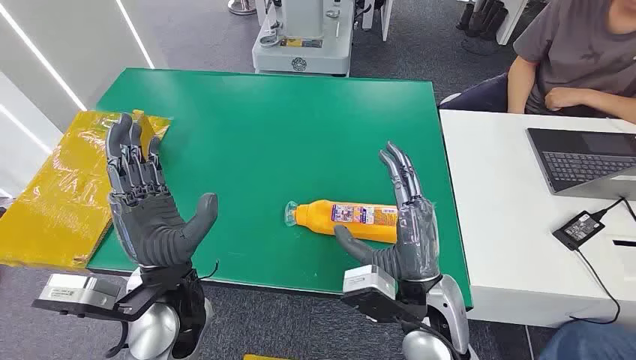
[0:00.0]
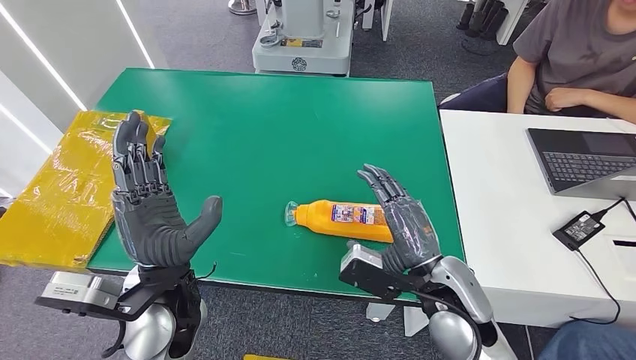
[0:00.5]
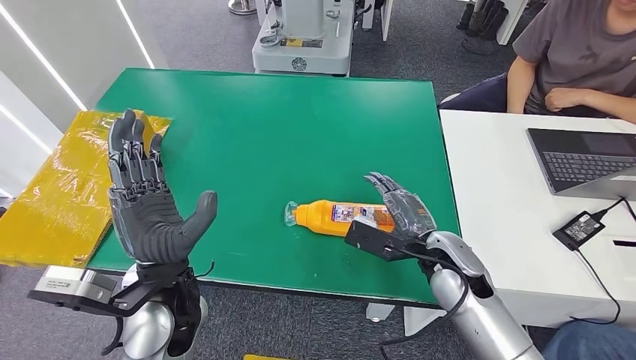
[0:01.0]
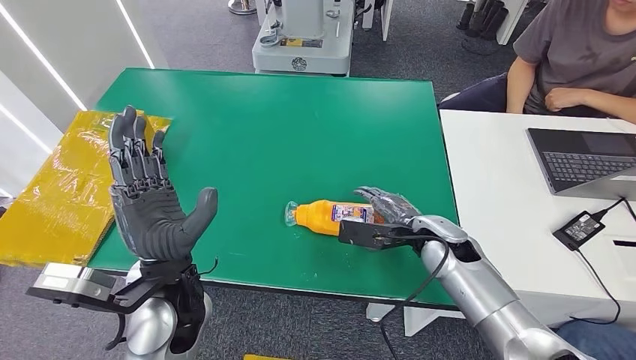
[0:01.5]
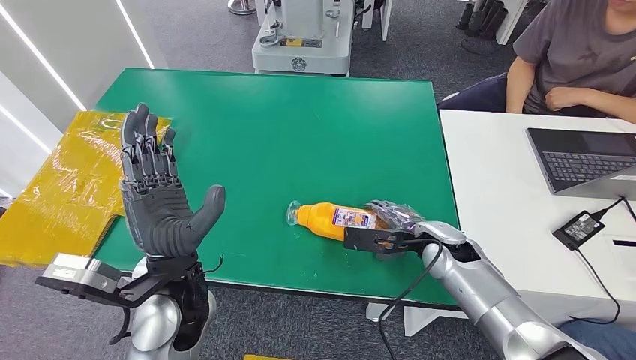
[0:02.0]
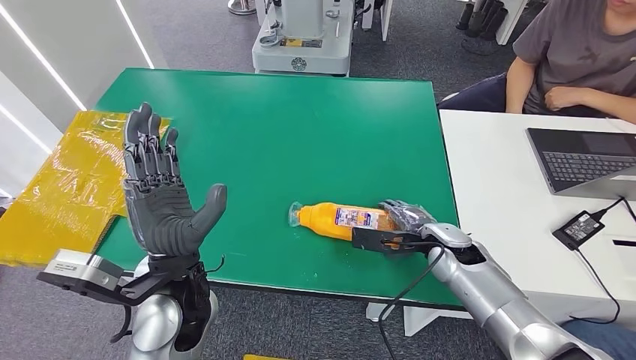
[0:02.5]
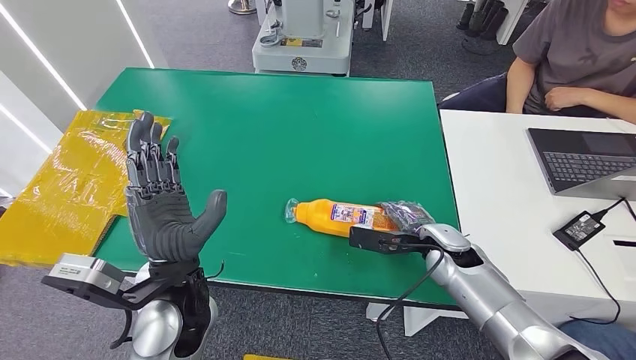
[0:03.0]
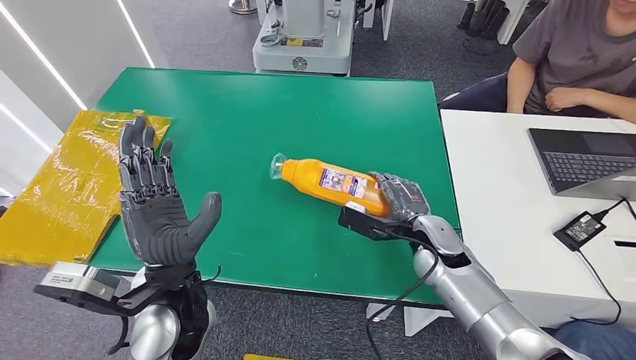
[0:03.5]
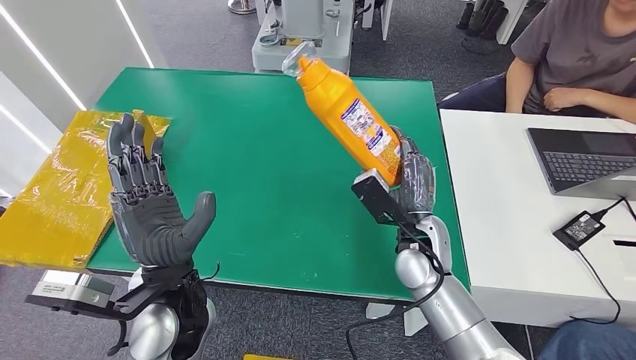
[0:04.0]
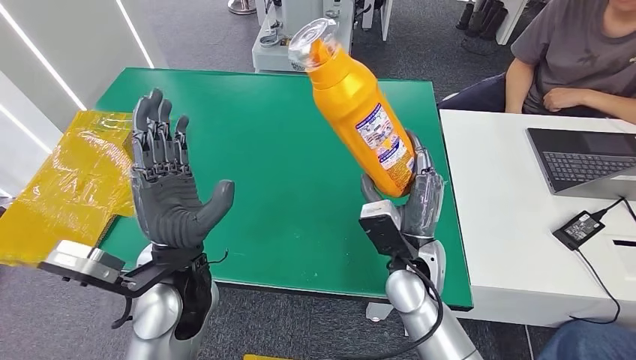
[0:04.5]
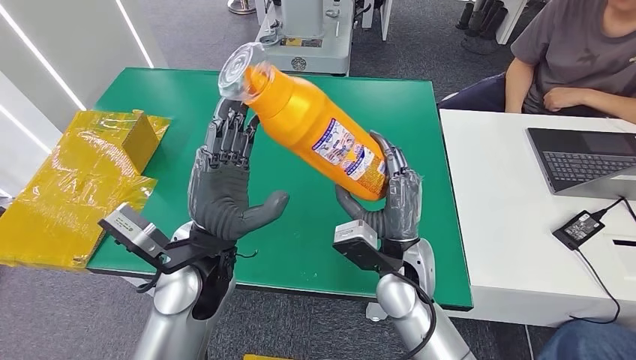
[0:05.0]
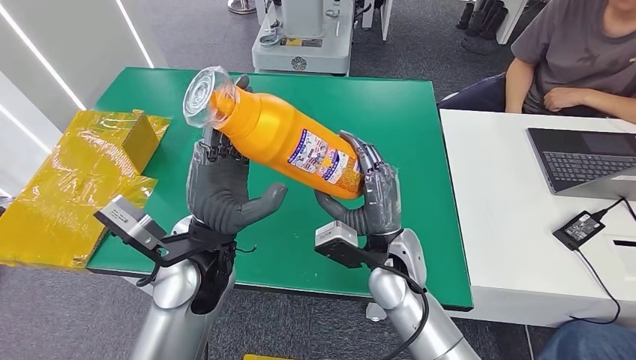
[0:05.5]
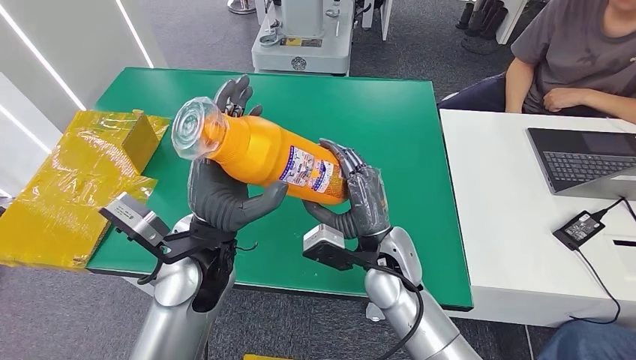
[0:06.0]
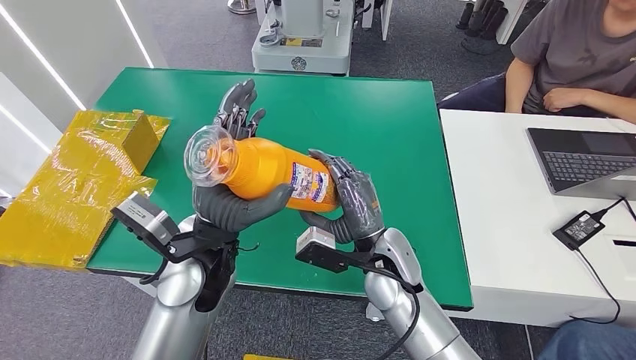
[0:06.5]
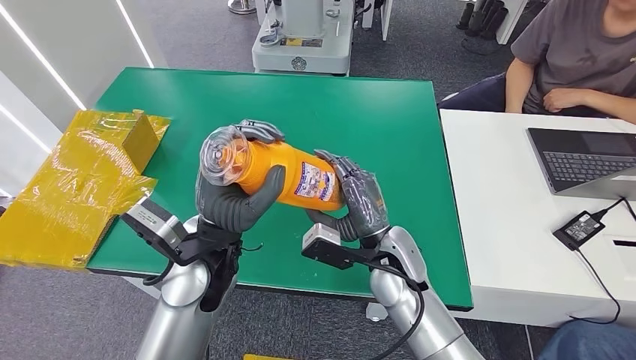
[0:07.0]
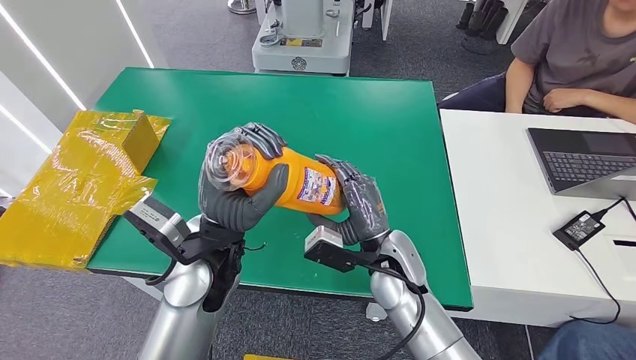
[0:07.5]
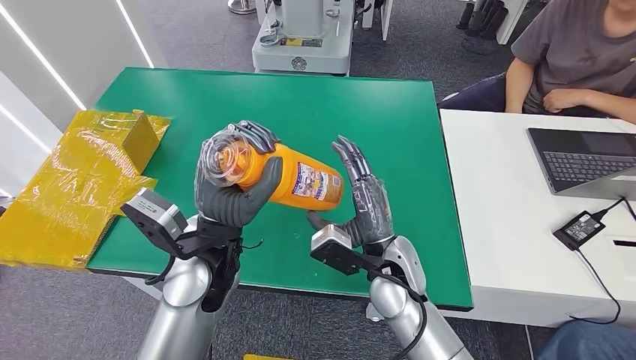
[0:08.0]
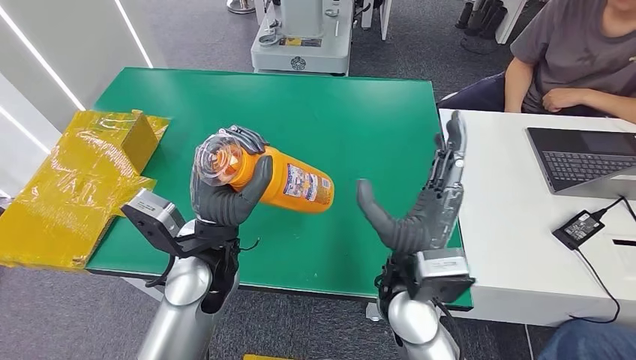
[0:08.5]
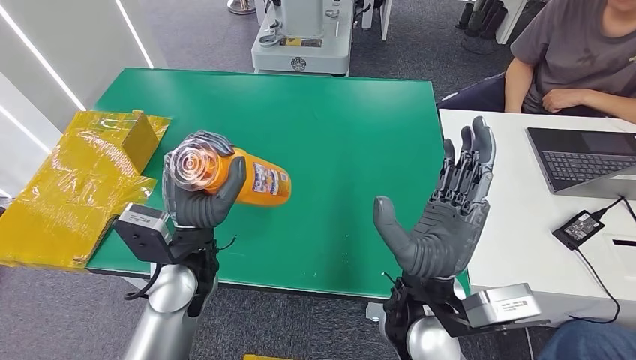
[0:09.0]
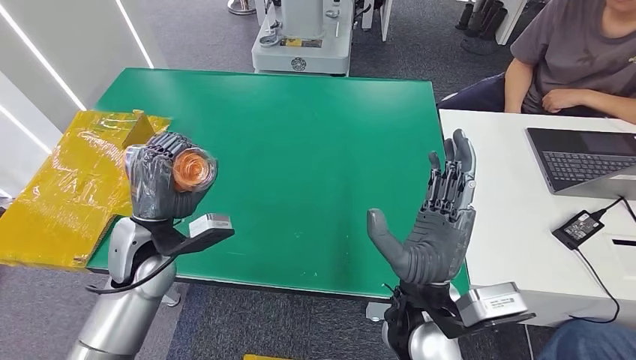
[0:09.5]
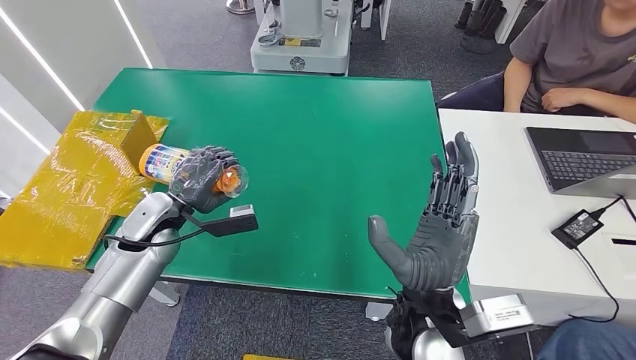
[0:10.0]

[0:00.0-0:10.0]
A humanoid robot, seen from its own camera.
Step, 0.0 to 4.5 s: Pick up the bottle from the table.
2.0 to 4.0 s: The right hand goes about 10 cm to the left.
6.0 to 8.0 s: The hands stay close to where they were, moving slightly.

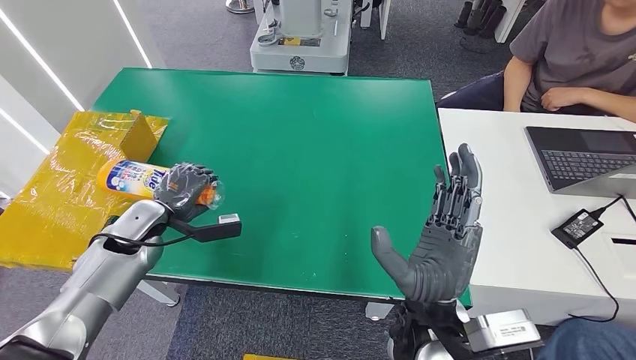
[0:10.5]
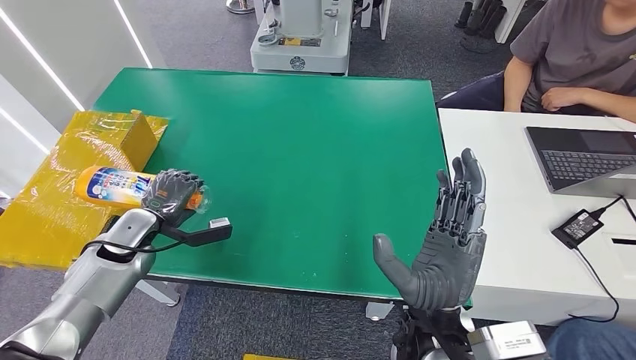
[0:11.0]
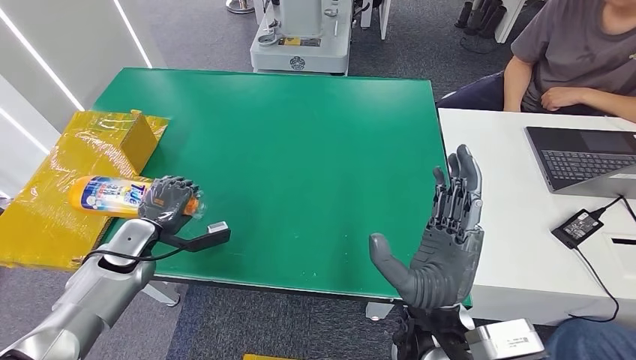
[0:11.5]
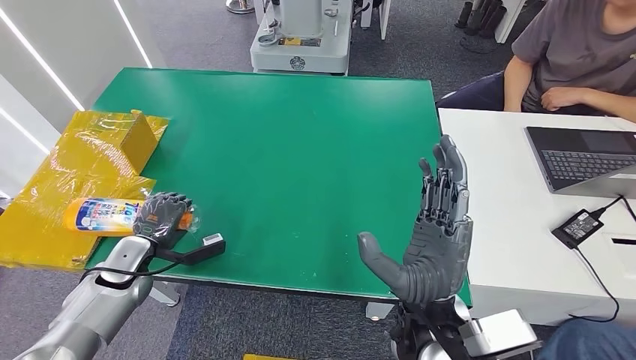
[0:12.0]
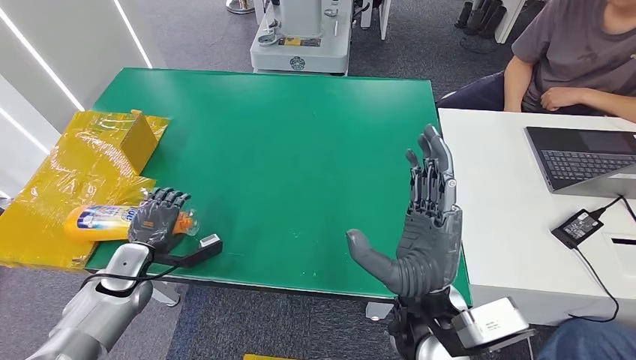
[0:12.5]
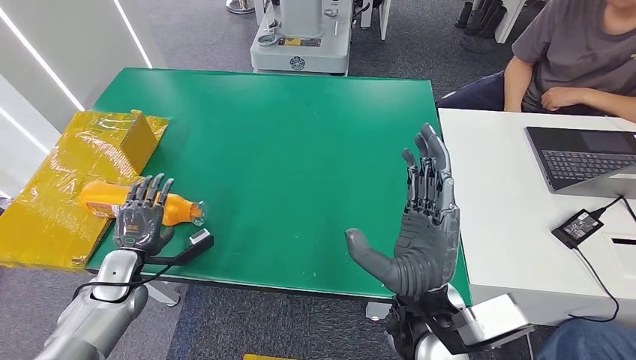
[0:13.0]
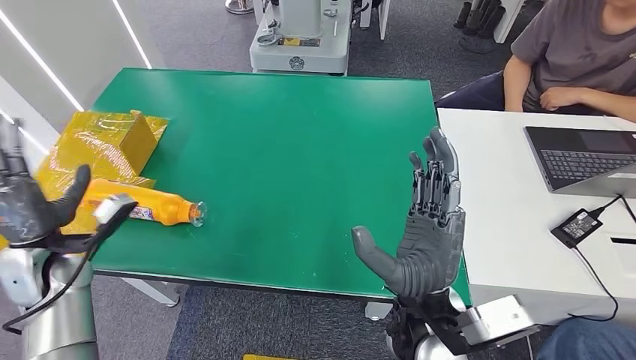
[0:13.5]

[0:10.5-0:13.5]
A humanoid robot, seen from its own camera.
Step, 10.5 to 13.0 s: Turn the bottle to the front side.
10.5 to 12.0 s: The left hand heads backward, covering approximately 5 cm.
12.0 to 13.5 s: The left hand travels upward by some 5 cm.

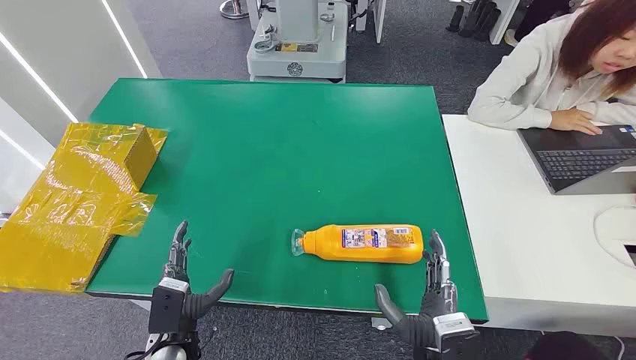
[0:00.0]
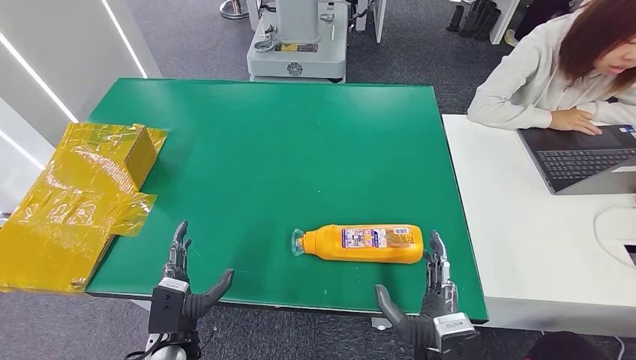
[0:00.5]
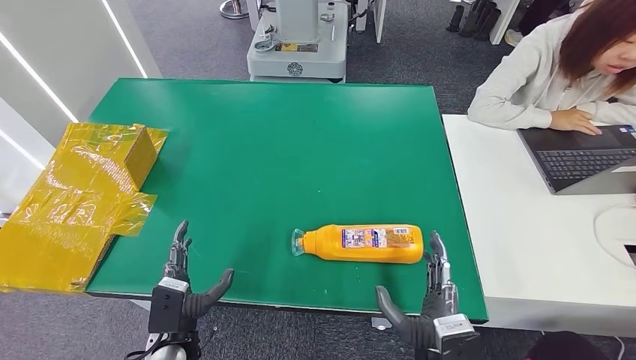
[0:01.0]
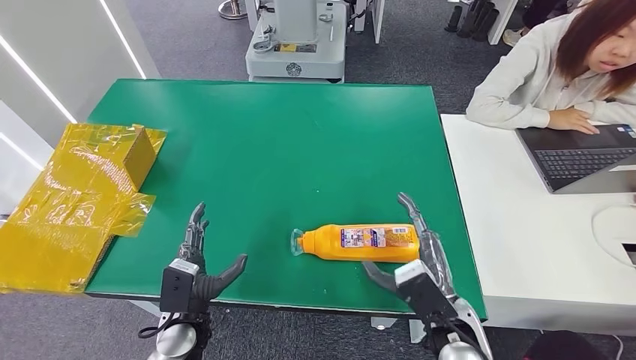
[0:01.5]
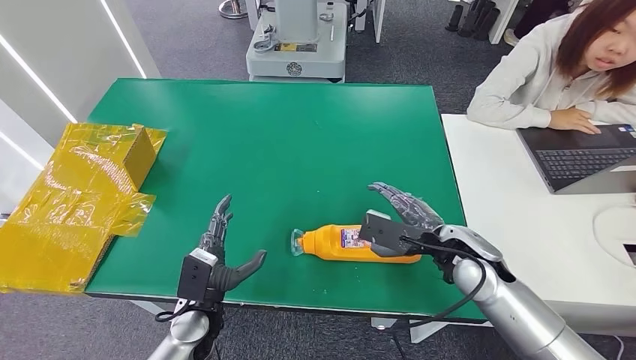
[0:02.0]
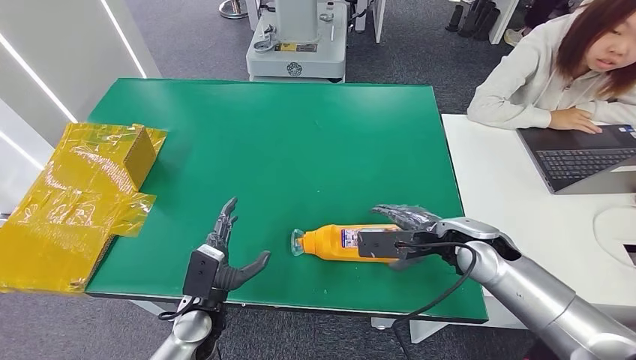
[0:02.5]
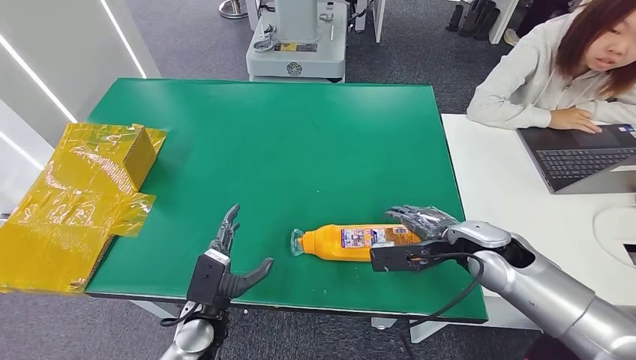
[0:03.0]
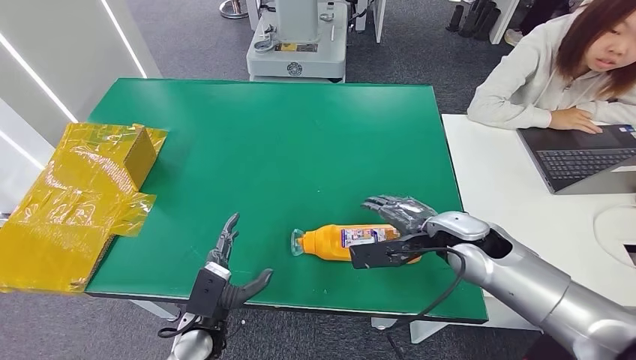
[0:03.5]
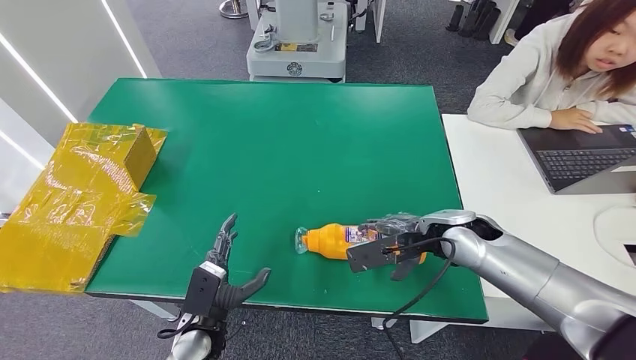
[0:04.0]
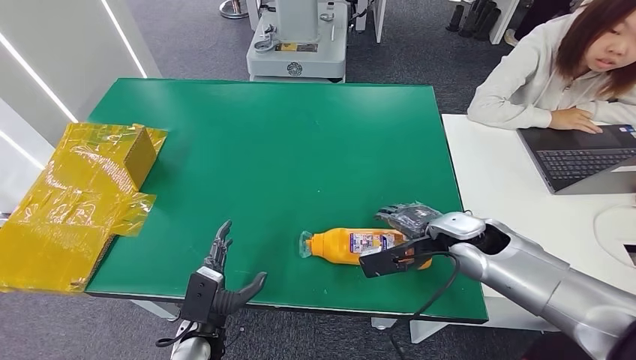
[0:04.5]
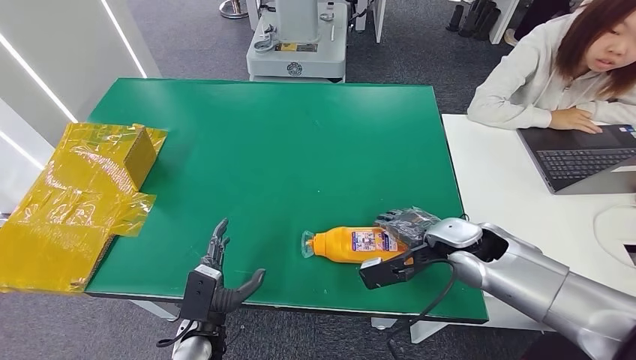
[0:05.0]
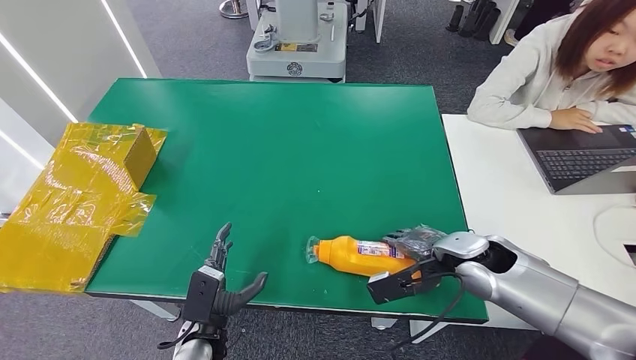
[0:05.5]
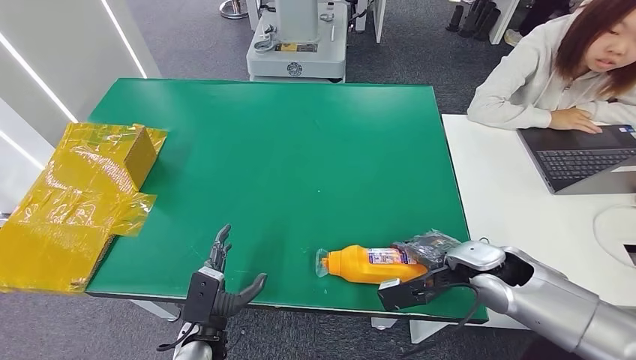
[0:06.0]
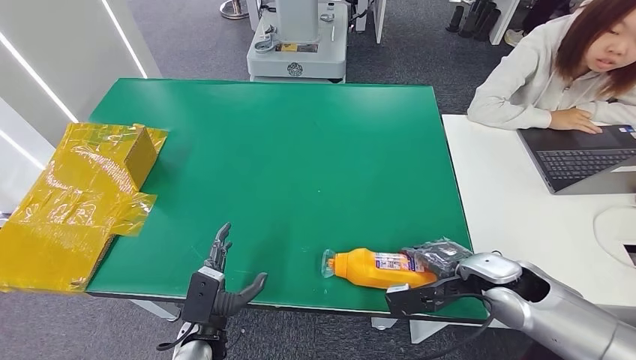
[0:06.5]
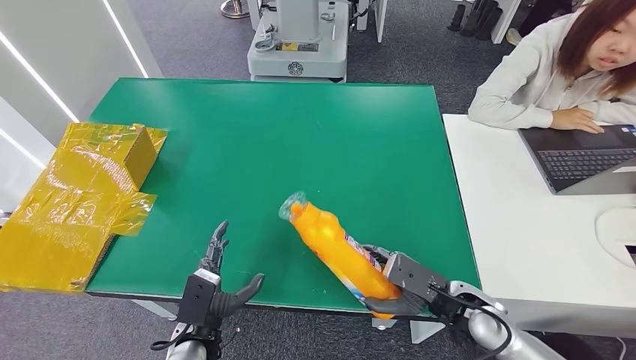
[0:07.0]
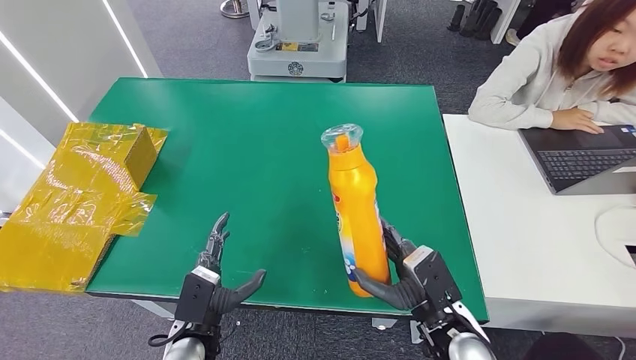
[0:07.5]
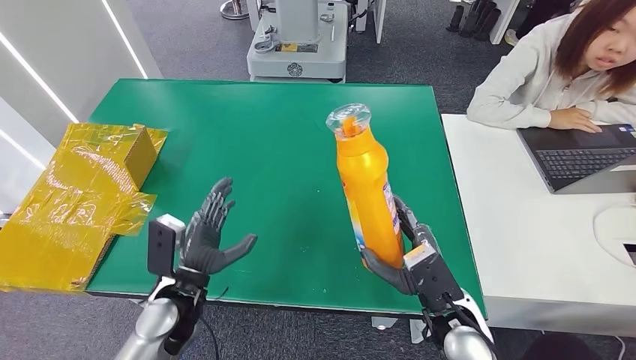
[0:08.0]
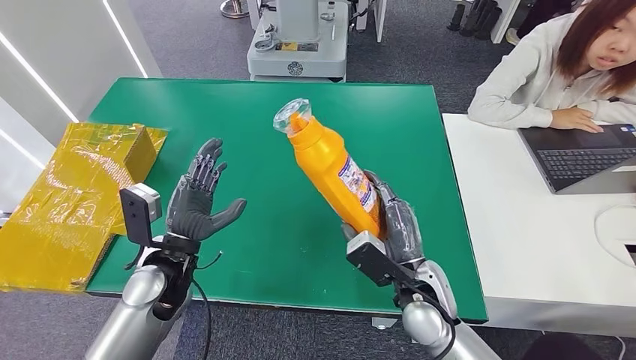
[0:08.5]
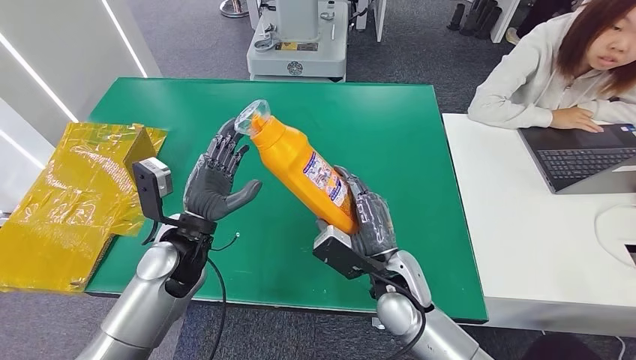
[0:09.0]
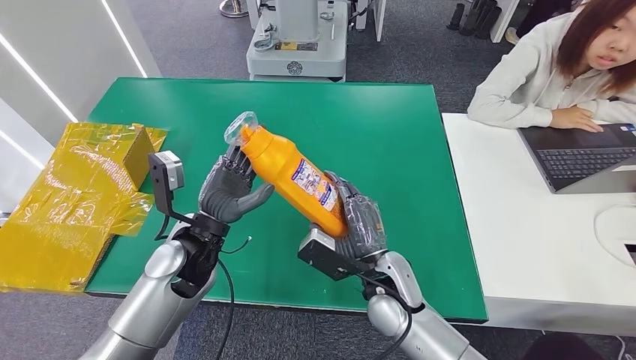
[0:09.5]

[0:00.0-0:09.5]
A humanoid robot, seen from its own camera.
Step, 0.0 to 7.0 s: Pick up the bottle from the table.
2.0 to 4.0 s: The right hand changes place by approximately 5 cm.
4.0 to 5.5 s: The right hand ends up approximately 5 cm from where it was.
5.5 to 7.5 s: The right hand goes about 15 cm backward, downward and to the left.
7.5 to 9.5 s: The left hand is displaced upward and forward by about 20 cm. Meanwhile the right hand goes about 10 cm to the left and forward.
